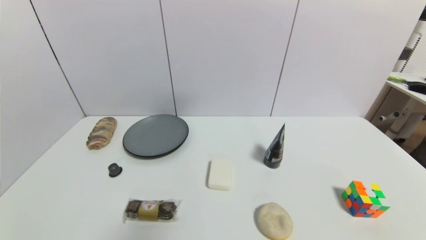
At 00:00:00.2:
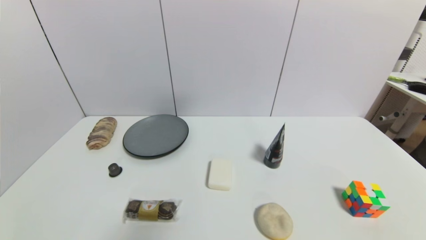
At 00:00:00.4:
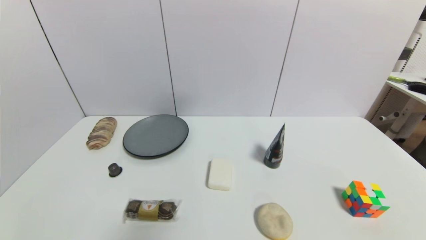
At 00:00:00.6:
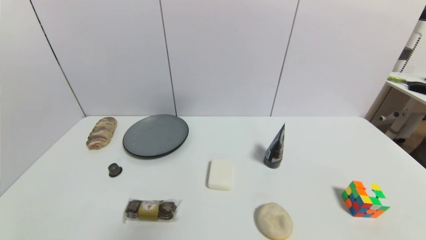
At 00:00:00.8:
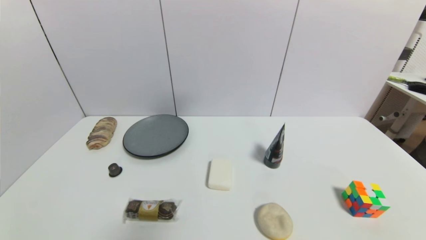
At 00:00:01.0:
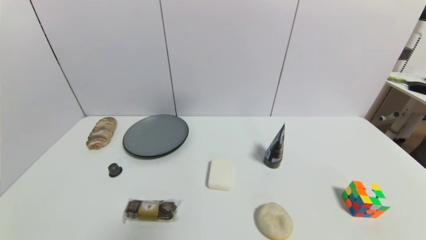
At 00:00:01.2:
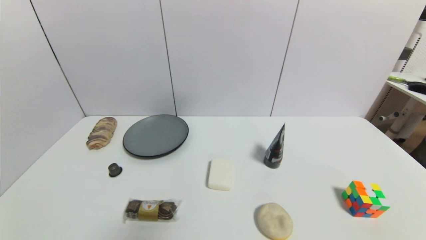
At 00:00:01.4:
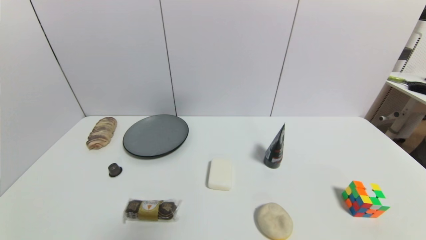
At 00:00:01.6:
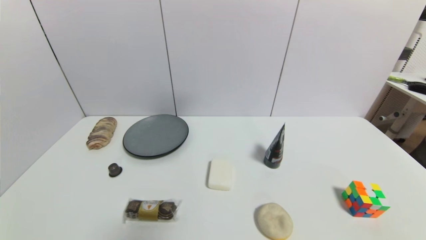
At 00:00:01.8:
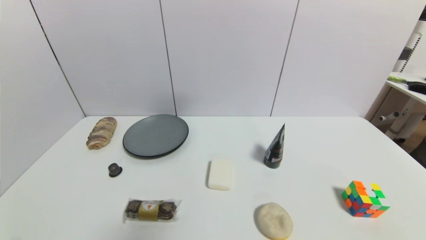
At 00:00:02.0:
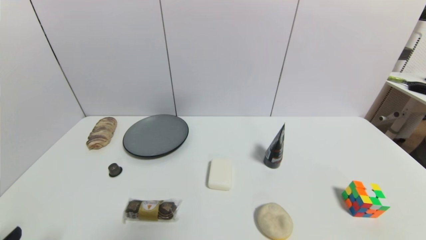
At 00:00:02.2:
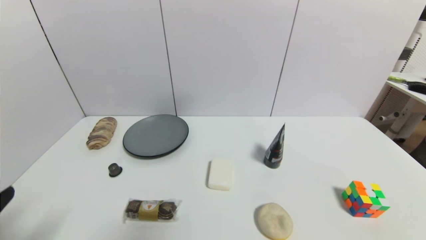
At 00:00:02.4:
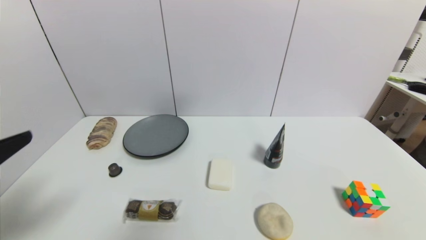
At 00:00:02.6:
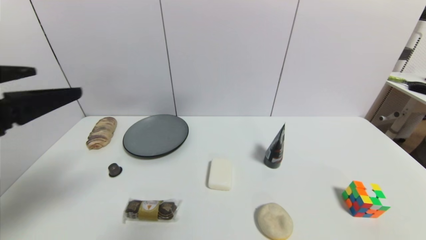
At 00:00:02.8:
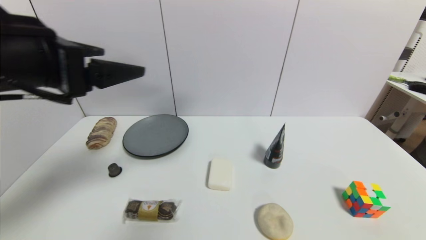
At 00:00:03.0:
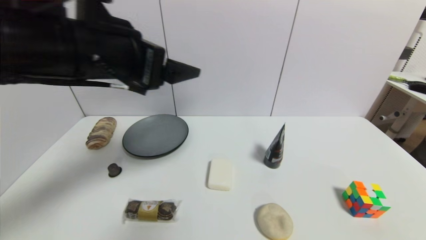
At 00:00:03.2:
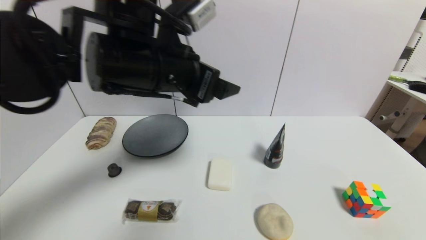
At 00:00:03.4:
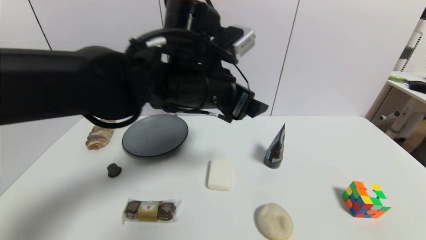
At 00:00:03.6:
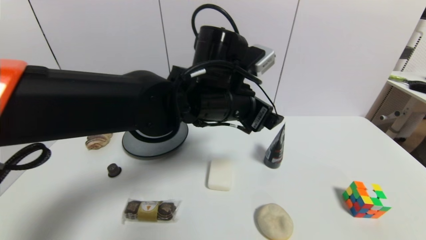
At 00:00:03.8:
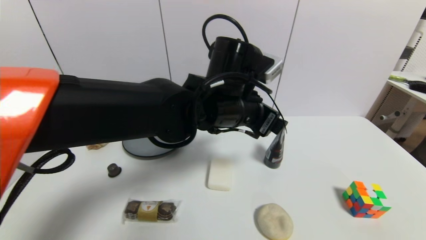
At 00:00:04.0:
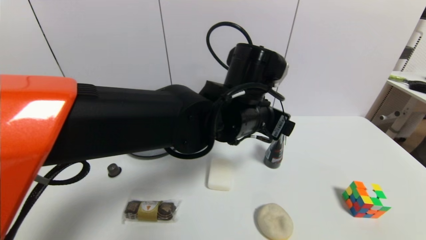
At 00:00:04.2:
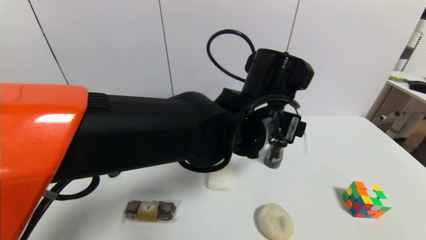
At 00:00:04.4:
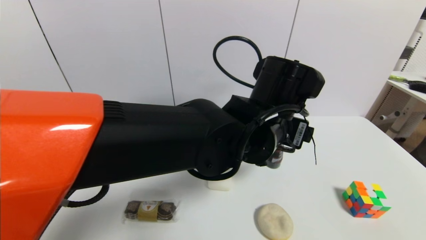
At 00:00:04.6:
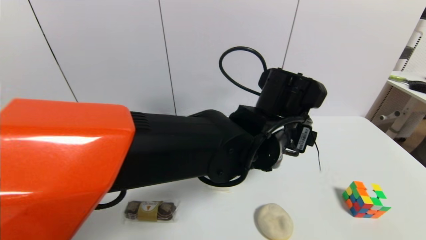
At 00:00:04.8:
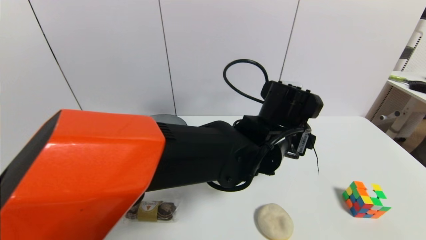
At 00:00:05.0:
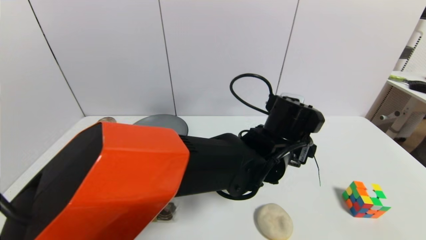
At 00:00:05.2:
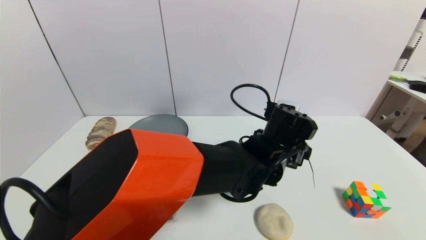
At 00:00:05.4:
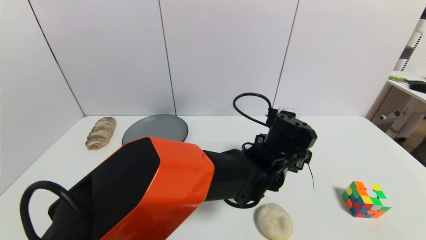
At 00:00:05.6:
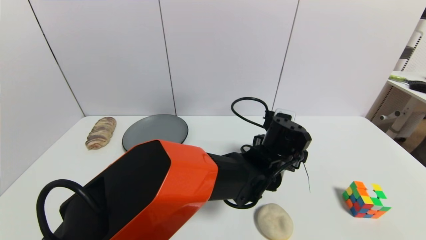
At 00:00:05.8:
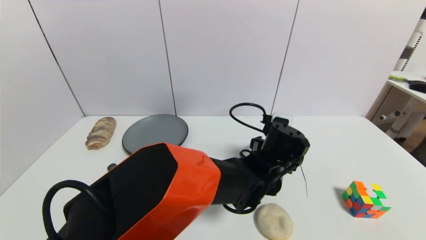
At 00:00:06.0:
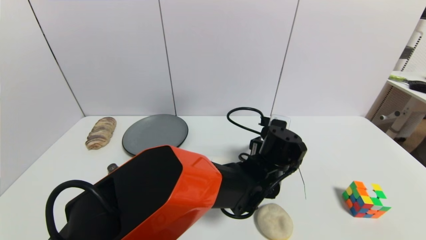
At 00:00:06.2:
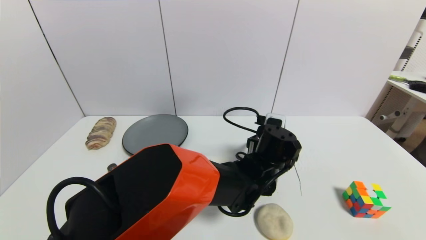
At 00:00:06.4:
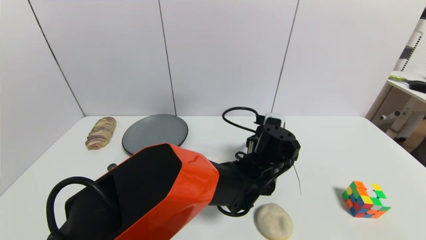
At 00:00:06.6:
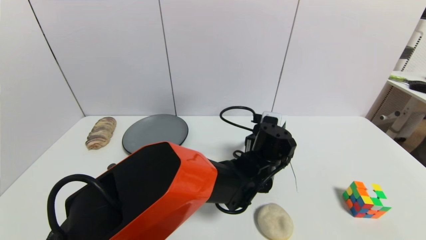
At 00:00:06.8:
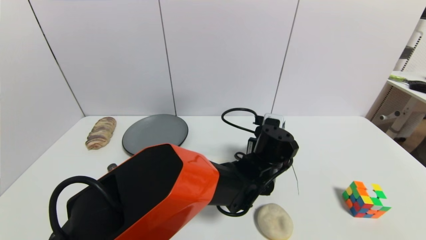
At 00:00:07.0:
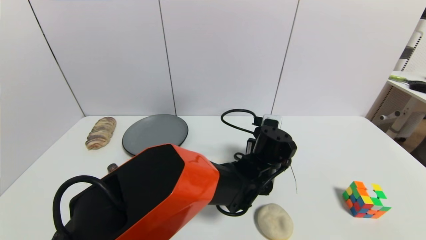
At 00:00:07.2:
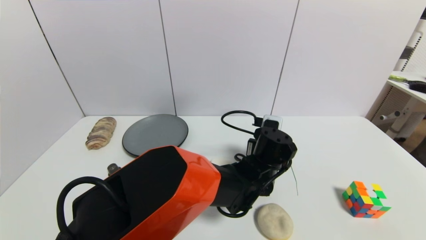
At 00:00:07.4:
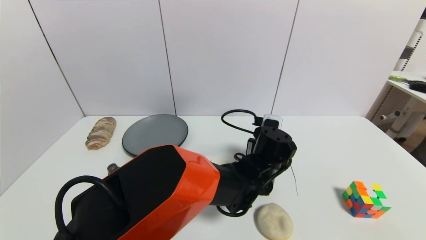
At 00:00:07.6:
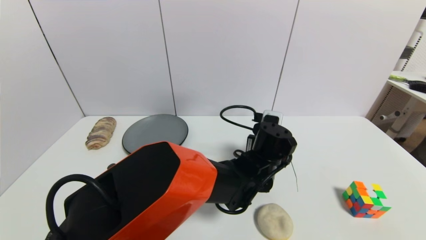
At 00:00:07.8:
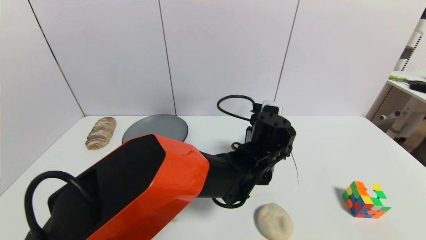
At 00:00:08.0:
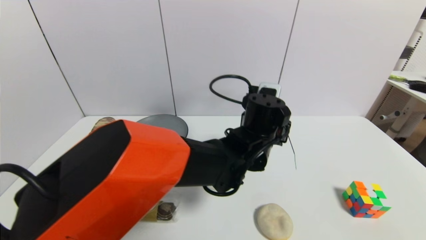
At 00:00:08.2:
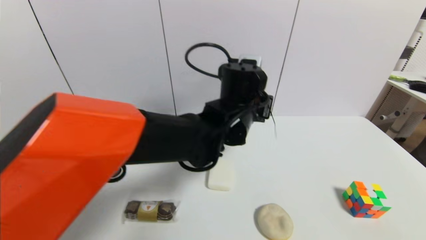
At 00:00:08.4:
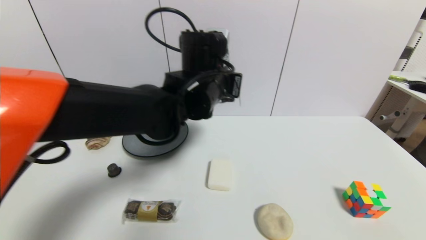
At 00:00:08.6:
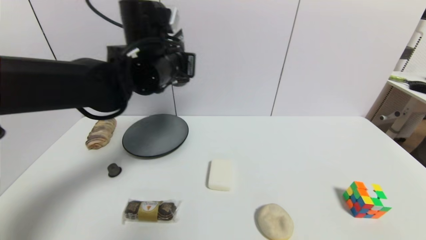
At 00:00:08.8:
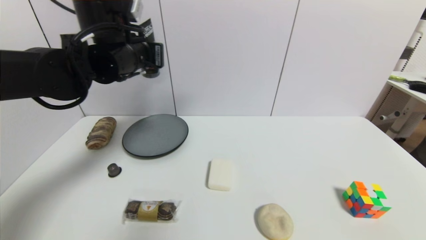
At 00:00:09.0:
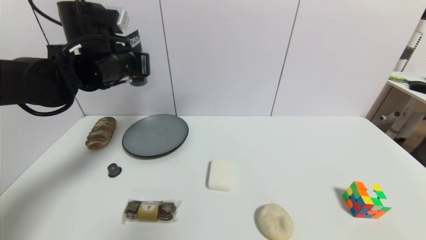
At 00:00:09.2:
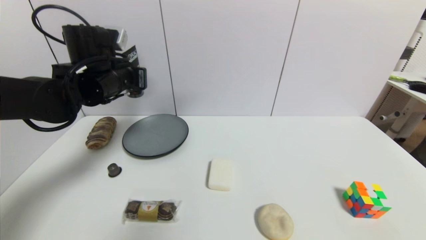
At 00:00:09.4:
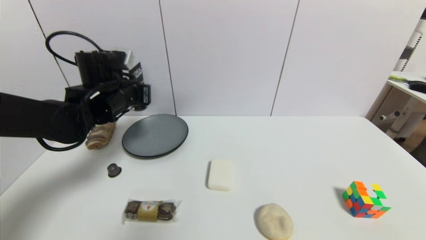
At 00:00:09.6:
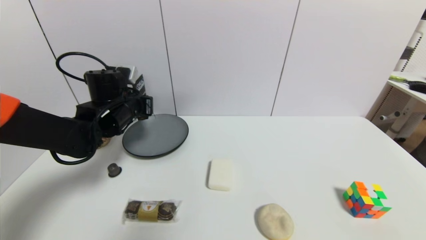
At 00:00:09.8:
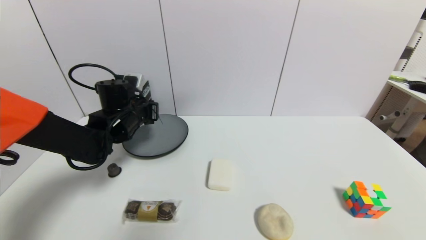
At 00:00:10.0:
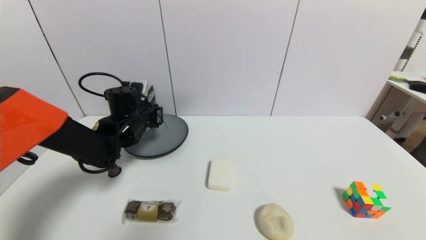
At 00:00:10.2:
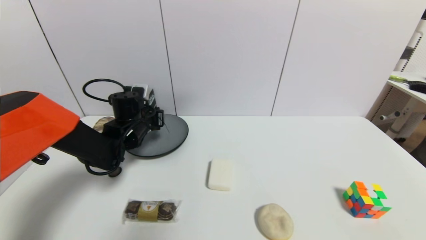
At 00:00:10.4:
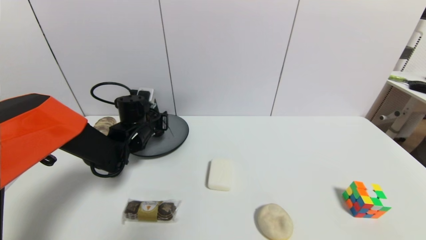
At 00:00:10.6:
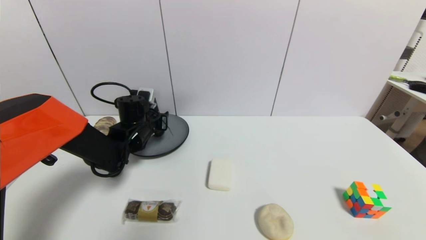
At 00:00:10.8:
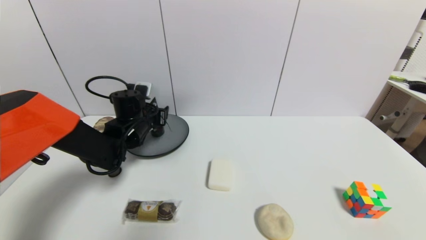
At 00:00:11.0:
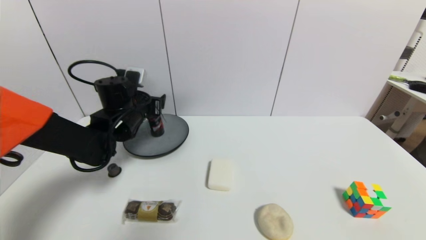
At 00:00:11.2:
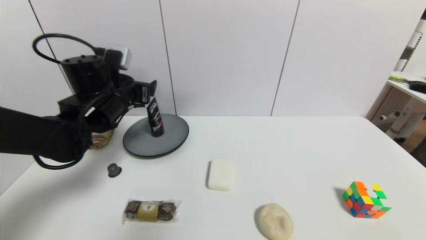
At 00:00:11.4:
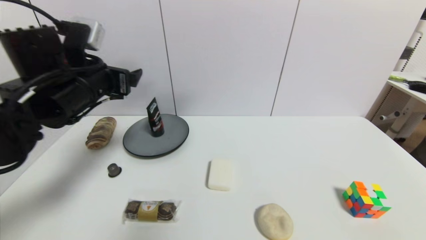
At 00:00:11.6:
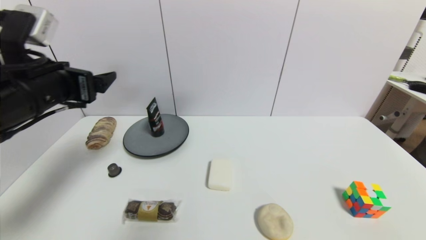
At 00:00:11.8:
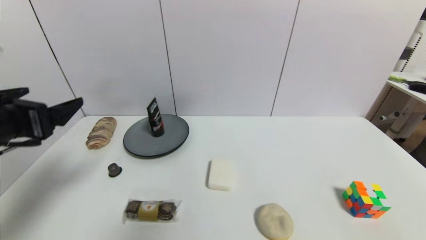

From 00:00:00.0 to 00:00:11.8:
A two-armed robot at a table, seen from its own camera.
Task of the whole recording: use a gripper to pick the target object and place on the gray plate.
Step, from 00:00:00.0 to 00:00:07.2: Grasp the soft facial cleanser with the left gripper.
Step, from 00:00:07.4 to 00:00:10.8: Place the soft facial cleanser on the gray plate with the left gripper.
From 00:00:00.0 to 00:00:01.4: Both grippers stay put.
From 00:00:01.4 to 00:00:03.0: The left gripper travels upward, forward and to the right by roughly 40 cm.
From 00:00:03.0 to 00:00:04.4: The left gripper shifts some 25 cm to the right and downward.
From 00:00:04.4 to 00:00:06.0: The left gripper shifts about 15 cm downward.
From 00:00:06.0 to 00:00:07.4: The left gripper closes.
From 00:00:07.4 to 00:00:08.8: The left gripper is displaced to the left and upward by approximately 35 cm.
From 00:00:08.8 to 00:00:10.4: The left gripper travels downward by approximately 20 cm, and opens.
From 00:00:10.4 to 00:00:11.8: The left gripper moves backward and upward, some 30 cm, and opens up.

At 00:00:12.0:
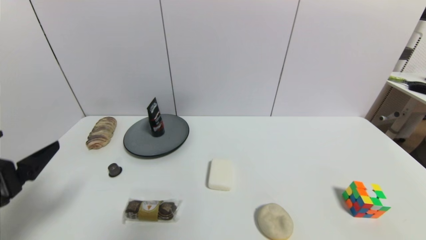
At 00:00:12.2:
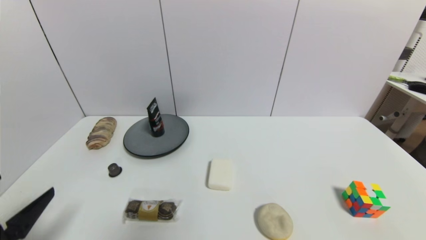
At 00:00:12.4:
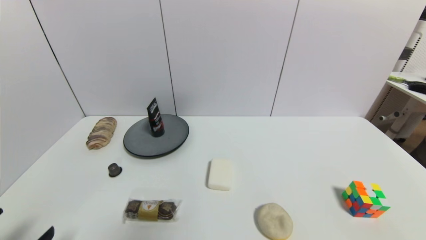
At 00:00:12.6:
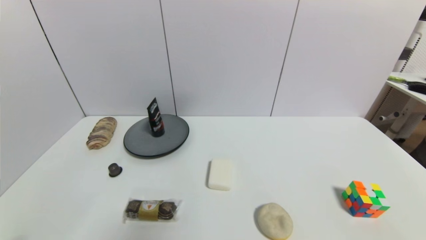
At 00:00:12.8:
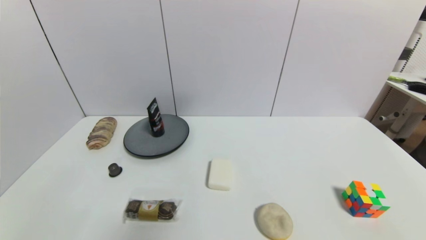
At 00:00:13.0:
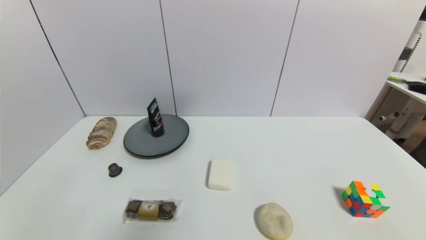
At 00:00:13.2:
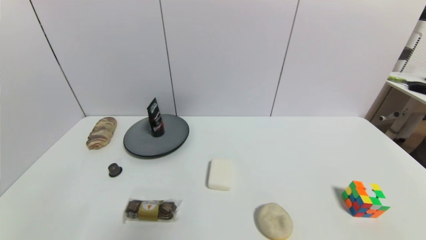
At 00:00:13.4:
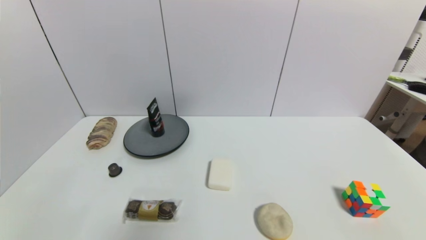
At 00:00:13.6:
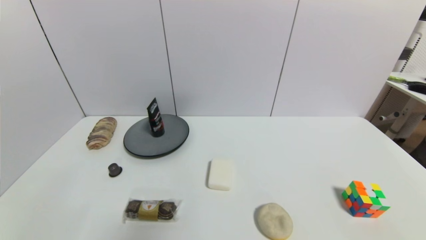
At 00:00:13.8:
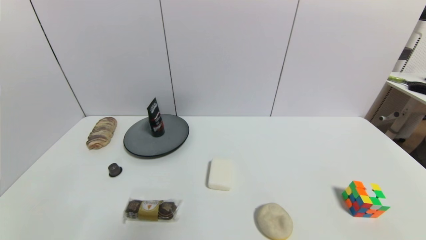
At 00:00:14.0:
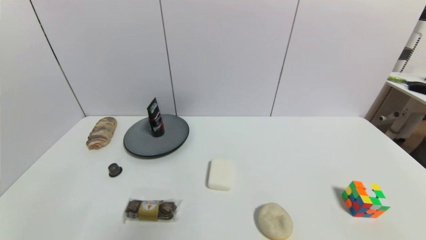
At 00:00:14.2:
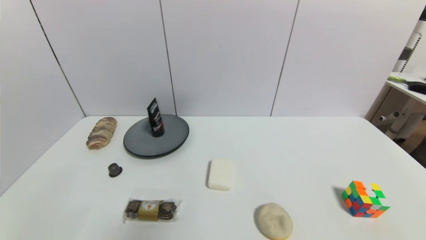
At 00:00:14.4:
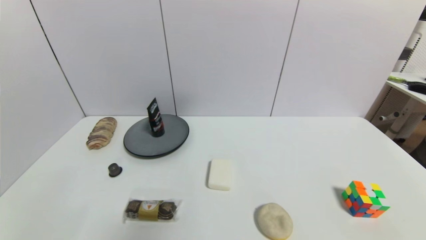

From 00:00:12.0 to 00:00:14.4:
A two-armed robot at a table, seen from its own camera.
Task of the whole recording: use a gripper to pick the target object and place on the gray plate.
From 00:00:12.0 to 00:00:13.2: The left gripper moves downward and backward, roughly 20 cm.
From 00:00:13.2 to 00:00:14.4: Both grippers stay put.
